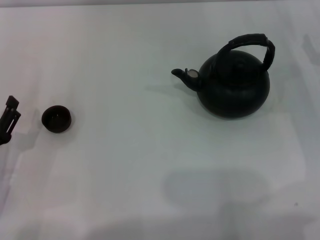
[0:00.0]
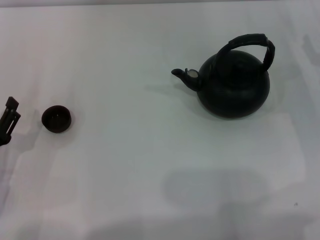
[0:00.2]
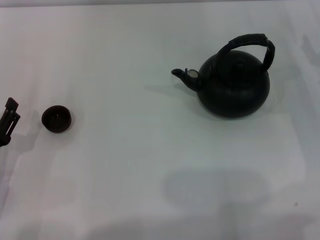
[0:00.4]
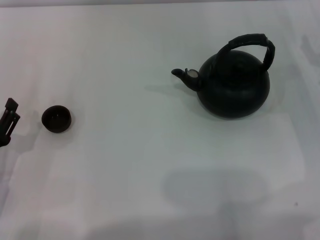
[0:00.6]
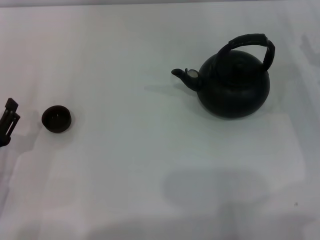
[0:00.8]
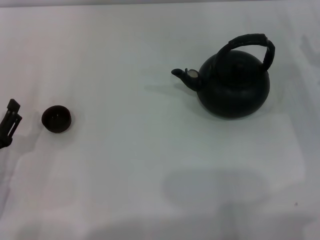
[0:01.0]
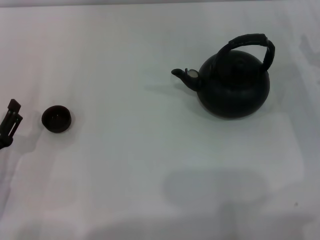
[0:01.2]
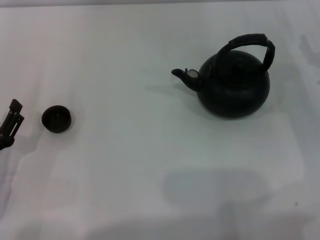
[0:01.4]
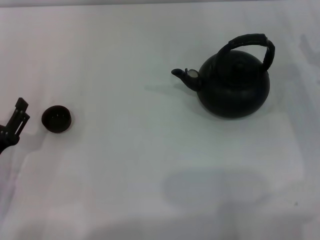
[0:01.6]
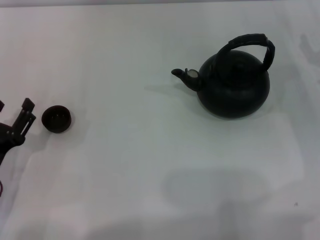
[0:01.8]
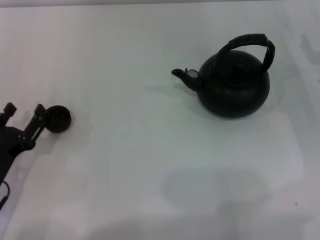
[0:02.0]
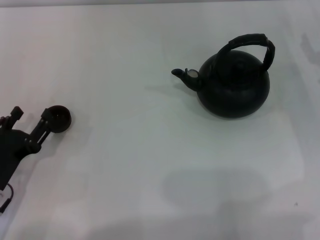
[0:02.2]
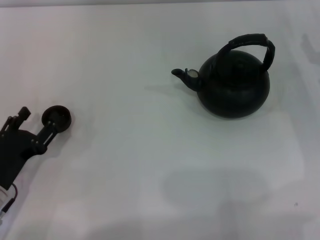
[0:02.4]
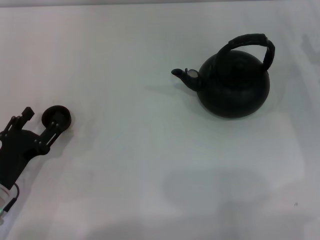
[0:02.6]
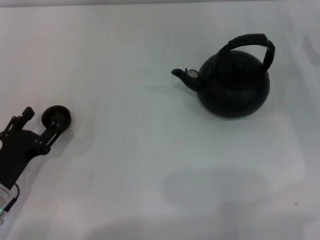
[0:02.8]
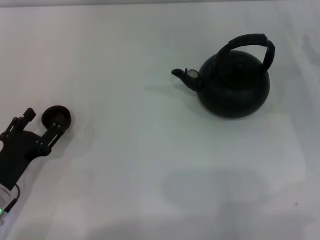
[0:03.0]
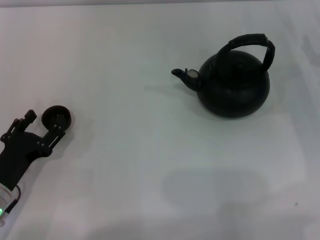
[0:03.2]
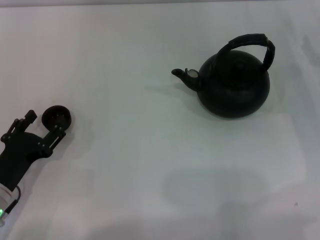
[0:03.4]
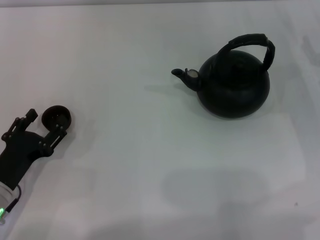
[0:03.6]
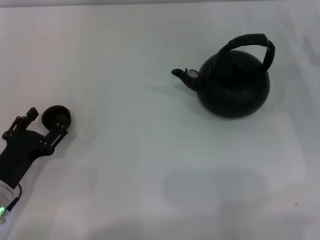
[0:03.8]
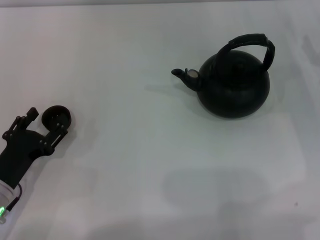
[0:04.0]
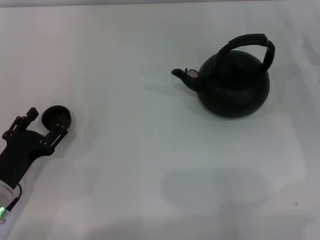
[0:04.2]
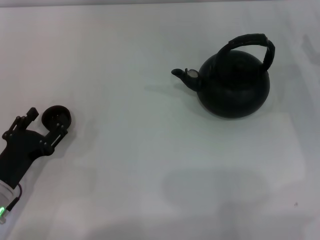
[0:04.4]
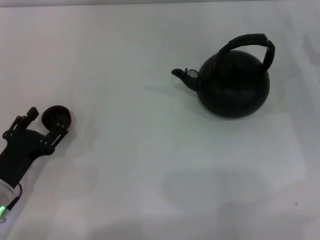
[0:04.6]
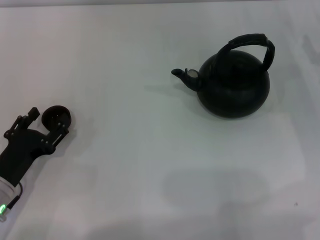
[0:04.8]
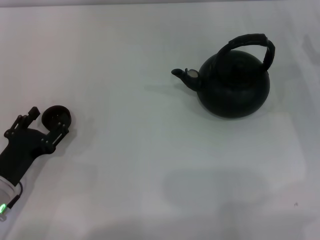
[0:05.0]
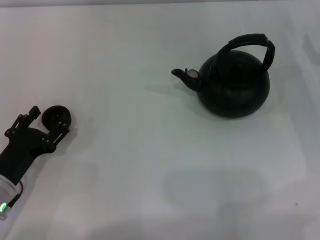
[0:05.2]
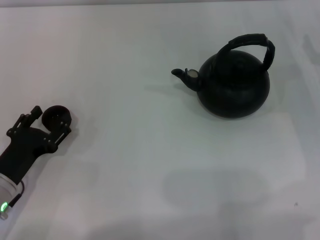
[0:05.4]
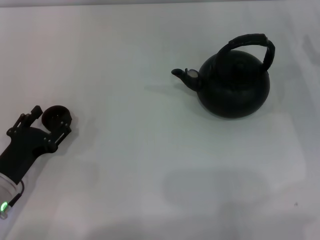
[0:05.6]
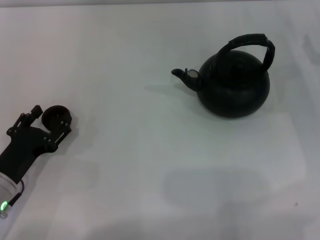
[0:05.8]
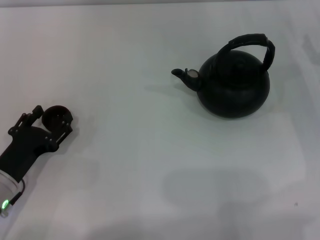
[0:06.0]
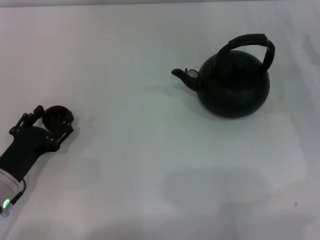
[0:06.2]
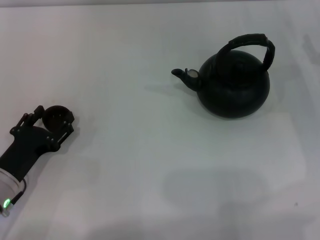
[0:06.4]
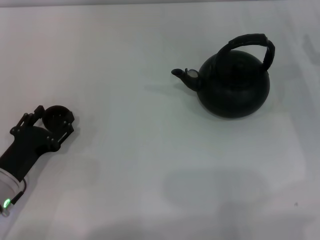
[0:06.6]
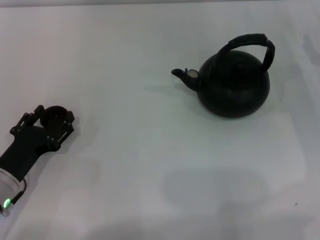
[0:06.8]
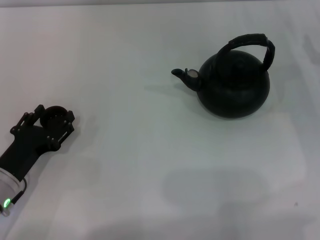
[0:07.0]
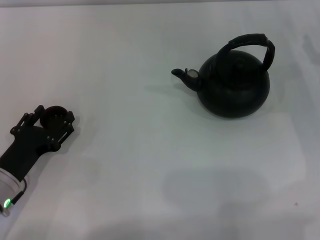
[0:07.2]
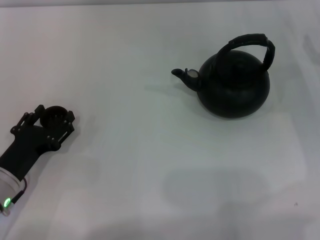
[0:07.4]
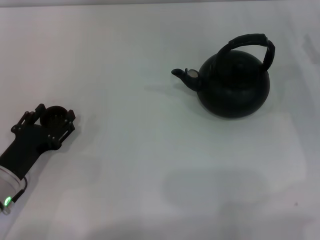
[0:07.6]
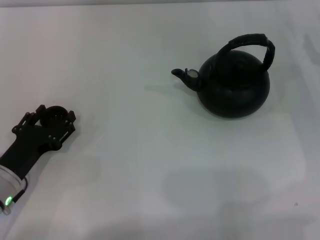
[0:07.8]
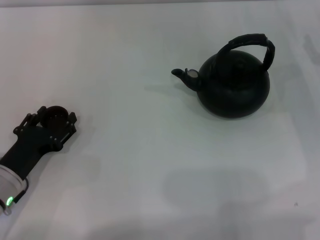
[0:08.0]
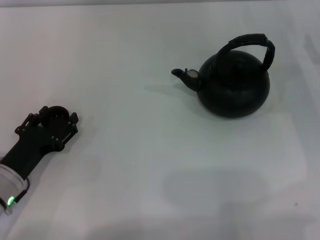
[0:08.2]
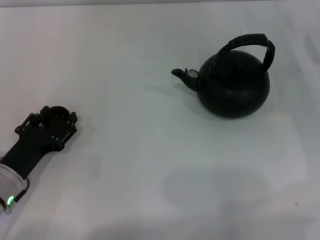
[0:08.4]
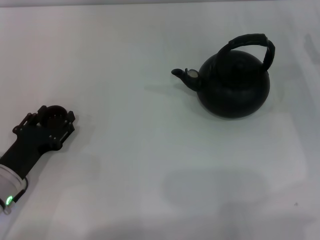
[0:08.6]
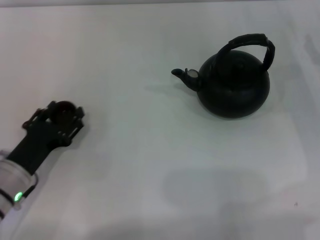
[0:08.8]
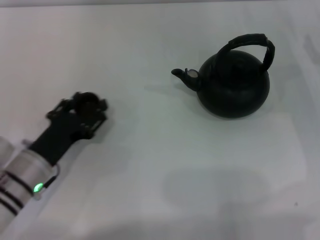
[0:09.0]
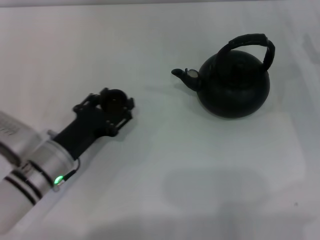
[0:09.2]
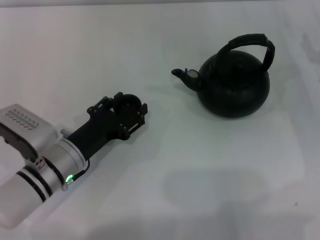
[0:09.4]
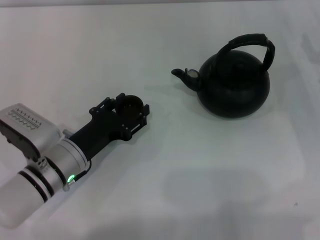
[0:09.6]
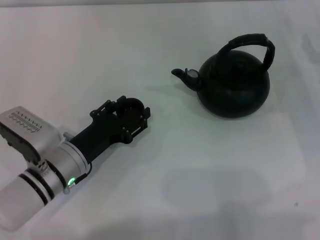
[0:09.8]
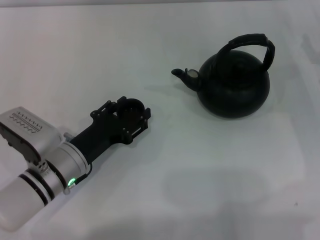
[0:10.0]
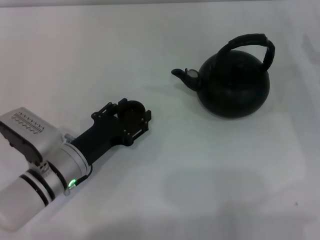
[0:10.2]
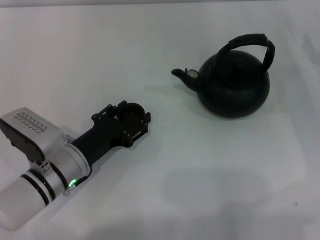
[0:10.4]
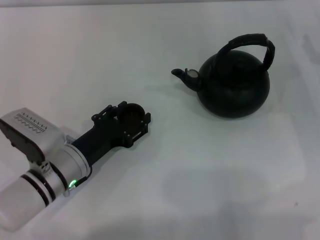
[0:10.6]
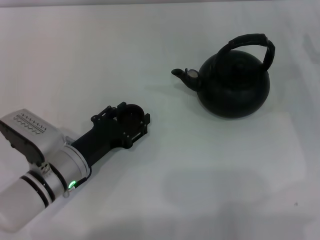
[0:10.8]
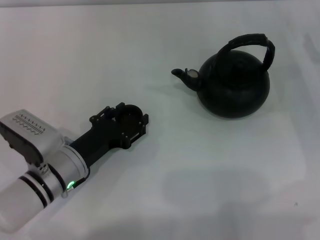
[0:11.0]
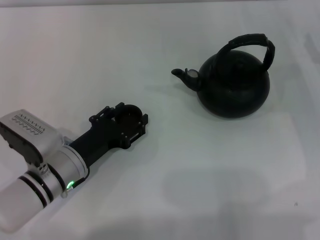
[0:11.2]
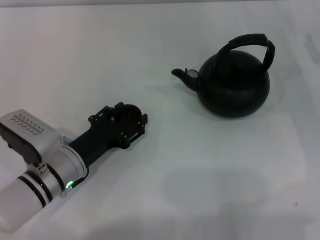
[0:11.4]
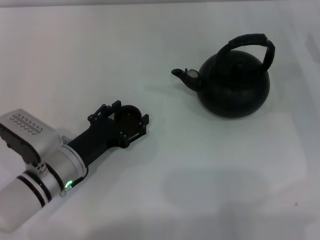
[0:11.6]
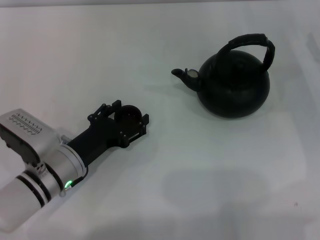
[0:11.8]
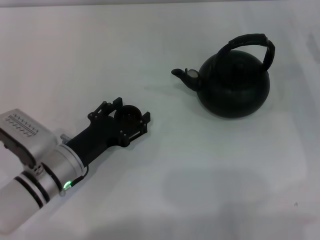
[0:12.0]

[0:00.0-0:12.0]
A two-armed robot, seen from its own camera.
Task of the whole recording: Grasp the handle of the teapot with one hand and pour tea into the teacup.
Step, 0:00.0 to 0:08.8: Pick up the teacup with the left gripper.
0:00.0 to 0:01.6: Both grippers stay about where they are.
0:01.6 to 0:03.0: The grippers move only a little.
0:03.0 to 0:04.4: Neither gripper changes place.
0:04.4 to 0:06.0: Both grippers stay about where they are.
0:06.0 to 0:07.6: The two grippers keep their place.
0:07.6 to 0:09.0: The left gripper ends up about 5 cm from where it was, and closes up.
0:09.0 to 0:10.4: The grippers make only small movements.
0:10.4 to 0:12.0: The left gripper opens.

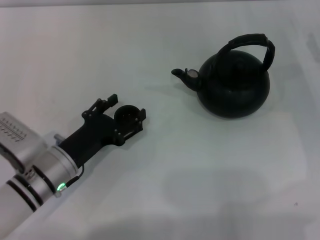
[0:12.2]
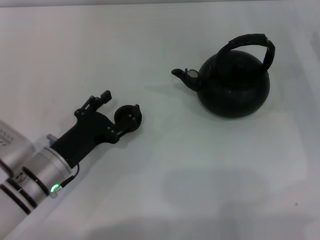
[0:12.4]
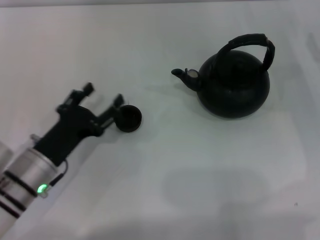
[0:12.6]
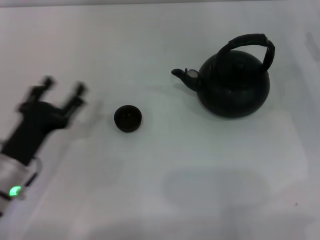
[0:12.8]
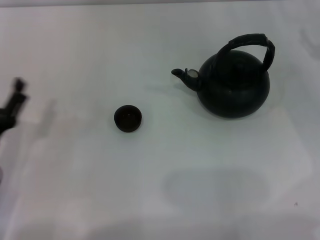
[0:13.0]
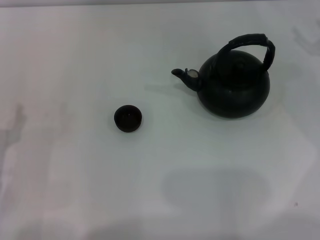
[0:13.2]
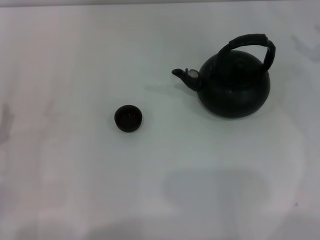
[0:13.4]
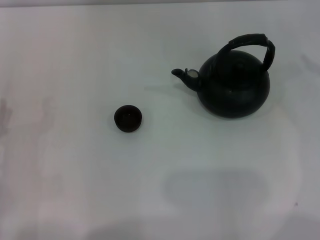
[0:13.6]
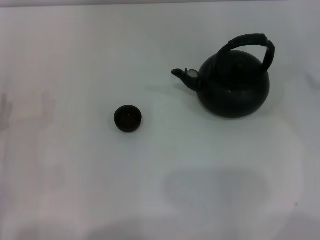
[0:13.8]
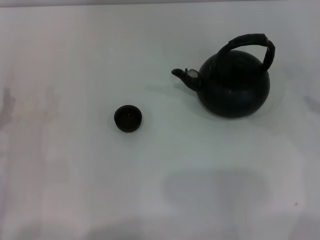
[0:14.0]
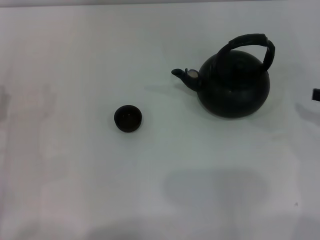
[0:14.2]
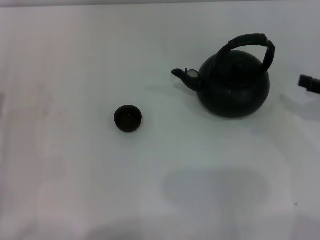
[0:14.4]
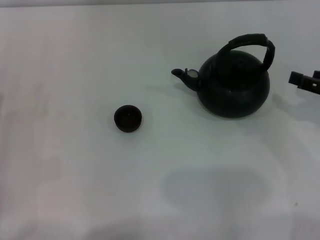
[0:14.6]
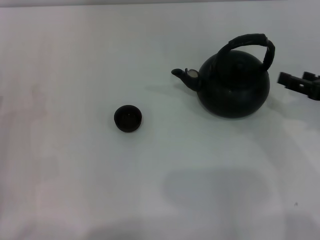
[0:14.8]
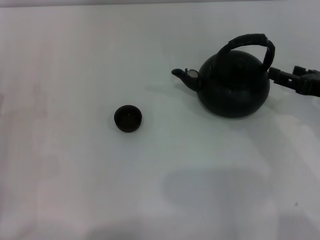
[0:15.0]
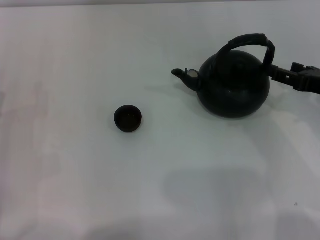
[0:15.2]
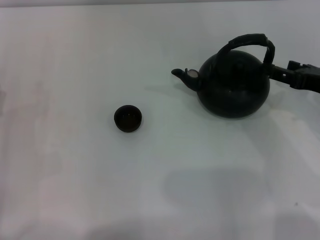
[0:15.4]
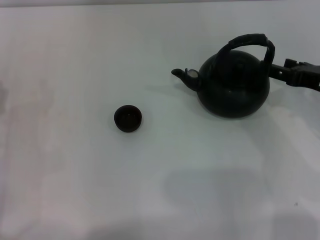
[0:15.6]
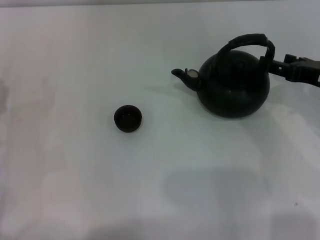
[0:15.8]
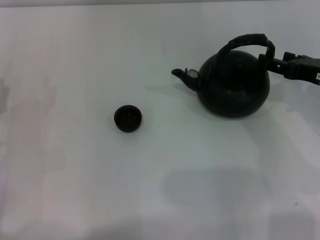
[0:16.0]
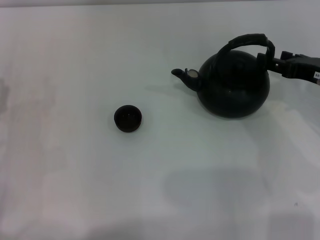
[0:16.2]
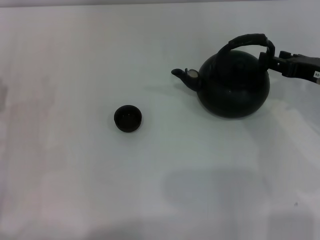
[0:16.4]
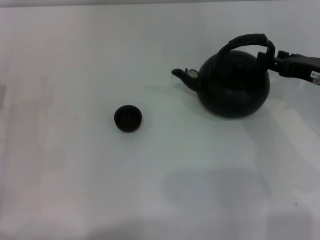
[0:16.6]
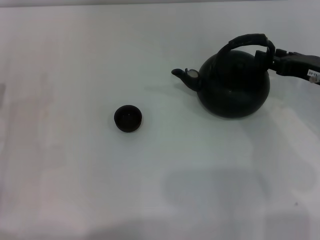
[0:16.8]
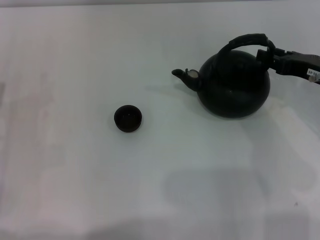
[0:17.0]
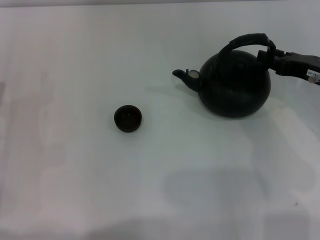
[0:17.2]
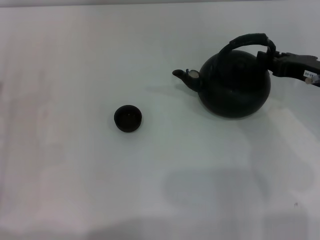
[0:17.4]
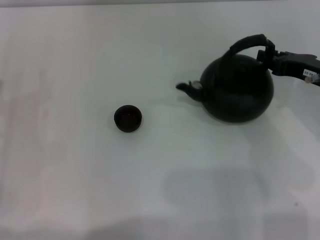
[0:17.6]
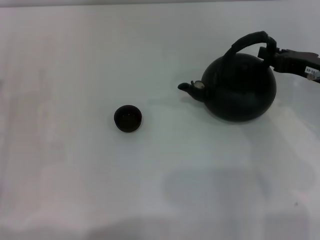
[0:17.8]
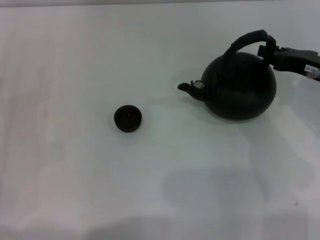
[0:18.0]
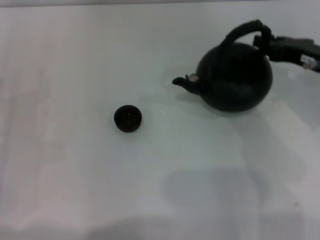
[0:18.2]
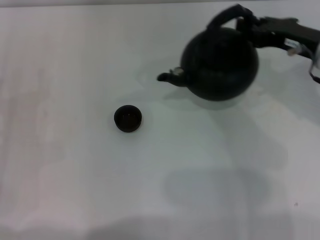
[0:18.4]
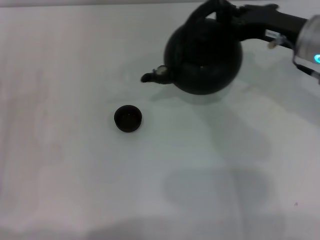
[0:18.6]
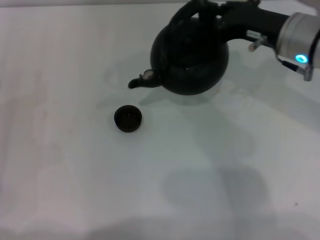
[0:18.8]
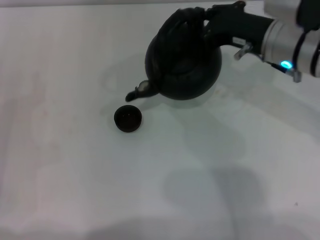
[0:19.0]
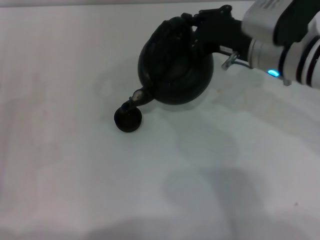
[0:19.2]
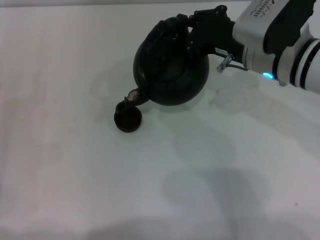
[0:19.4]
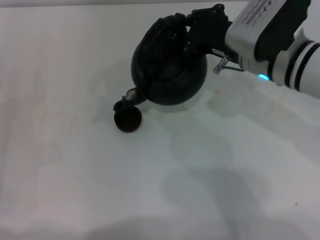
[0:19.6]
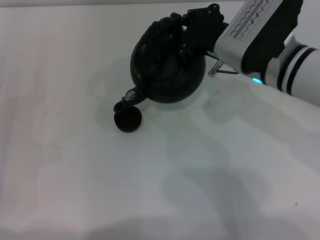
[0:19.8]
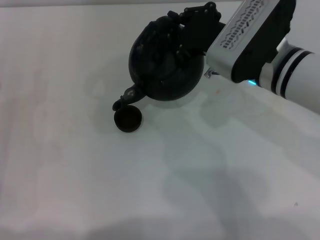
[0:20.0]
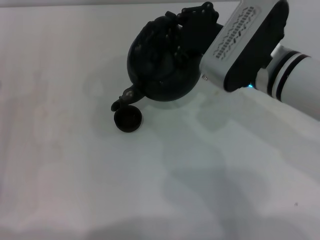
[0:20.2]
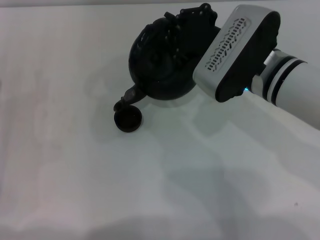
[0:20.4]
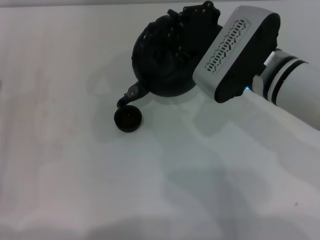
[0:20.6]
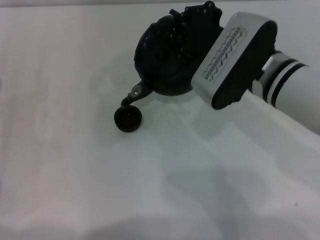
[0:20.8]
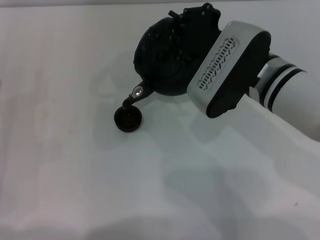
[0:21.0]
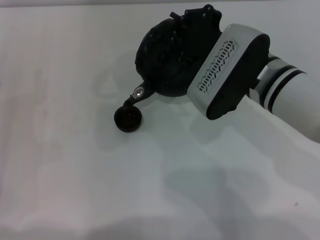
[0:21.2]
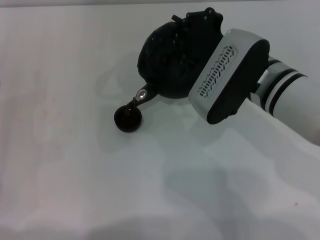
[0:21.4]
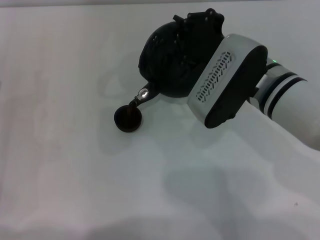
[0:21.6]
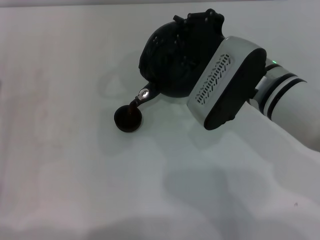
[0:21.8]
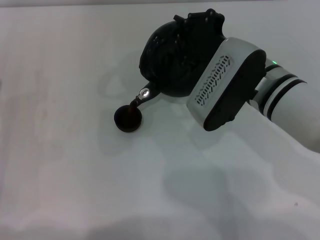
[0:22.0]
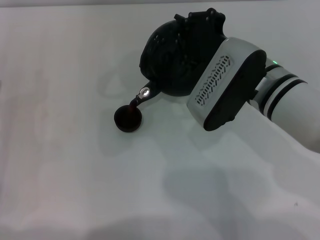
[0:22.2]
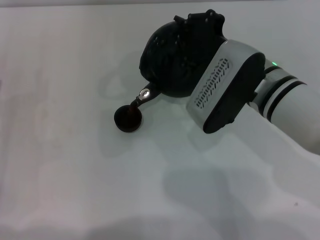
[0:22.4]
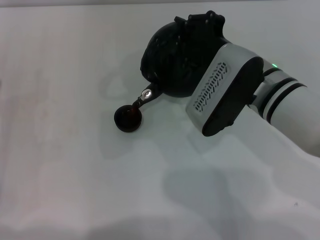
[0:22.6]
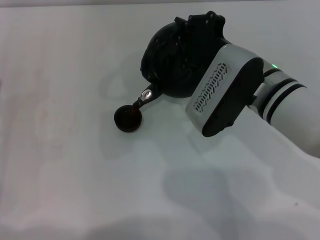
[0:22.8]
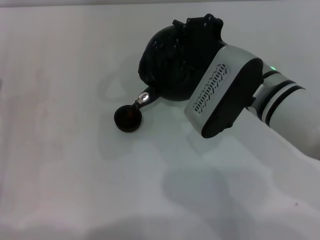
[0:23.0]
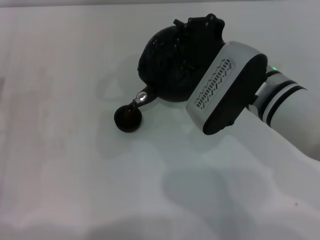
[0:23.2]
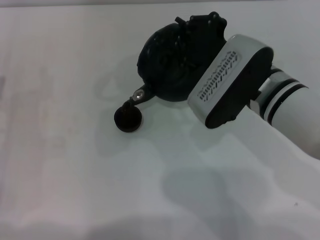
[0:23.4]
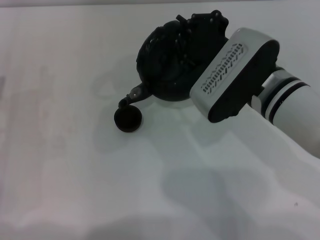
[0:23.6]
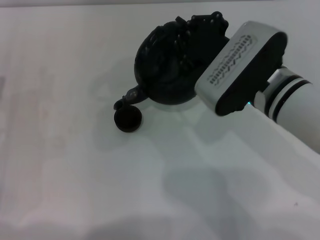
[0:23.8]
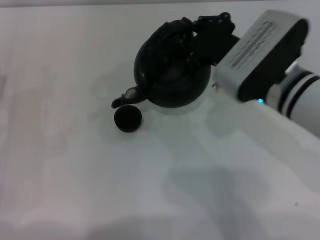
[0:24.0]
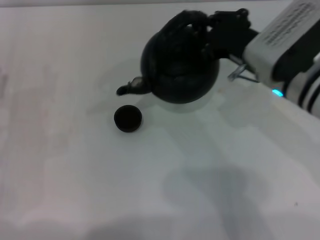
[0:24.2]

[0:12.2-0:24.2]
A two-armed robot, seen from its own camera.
Task of the whole recording: Grasp the handle of the teapot with one hand and pour tea into the teacup.
Step, 0:12.4 to 0:18.6: Pick up the teapot with the right gripper.
Step, 0:18.8 to 0:24.0: Pour tea into the teacup with the right gripper.
0:12.2 to 0:13.8: The left gripper shifts about 10 cm to the left. The right gripper moves upward and backward, roughly 15 cm.
0:13.8 to 0:15.2: The right gripper goes roughly 10 cm to the left and downward.
0:15.2 to 0:16.6: The grippers make only small movements.
0:16.6 to 0:18.2: The right gripper closes up.
0:18.2 to 0:19.8: The right gripper goes roughly 15 cm to the left.
0:21.2 to 0:22.6: The grippers move only a little.
